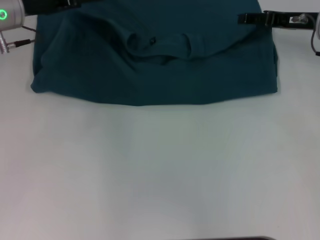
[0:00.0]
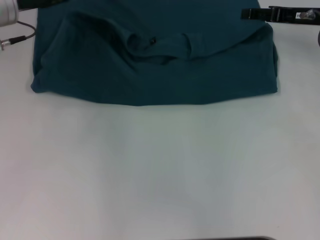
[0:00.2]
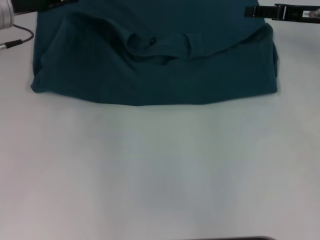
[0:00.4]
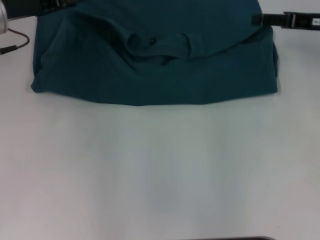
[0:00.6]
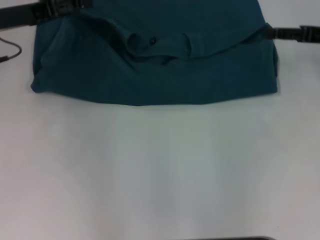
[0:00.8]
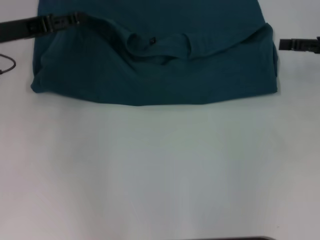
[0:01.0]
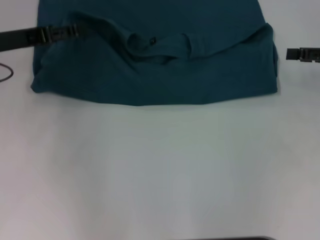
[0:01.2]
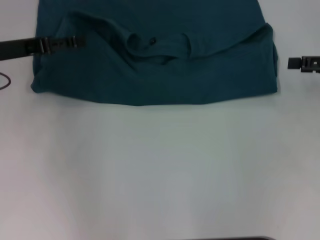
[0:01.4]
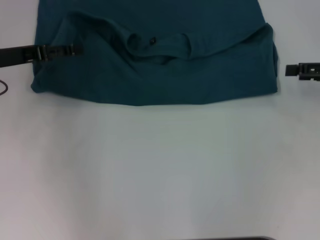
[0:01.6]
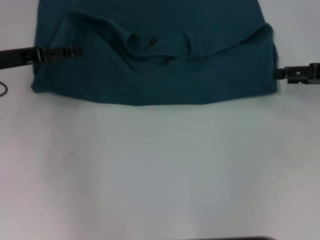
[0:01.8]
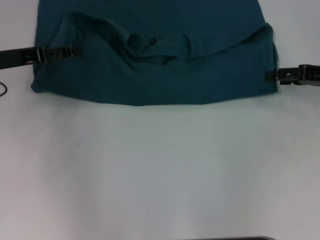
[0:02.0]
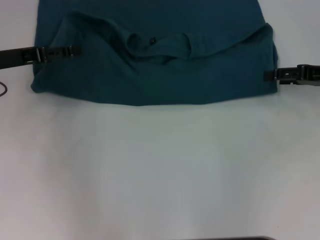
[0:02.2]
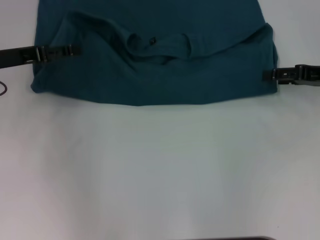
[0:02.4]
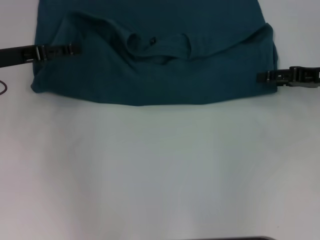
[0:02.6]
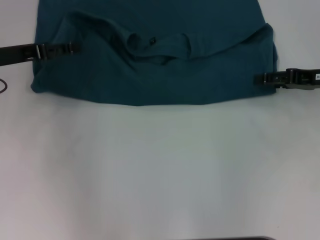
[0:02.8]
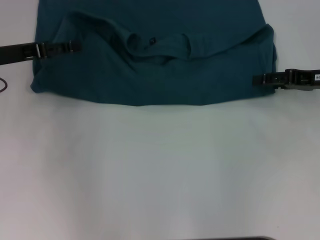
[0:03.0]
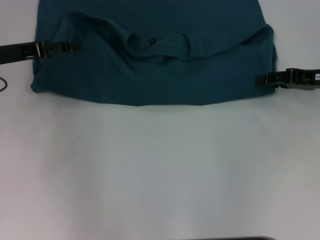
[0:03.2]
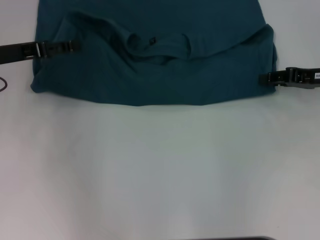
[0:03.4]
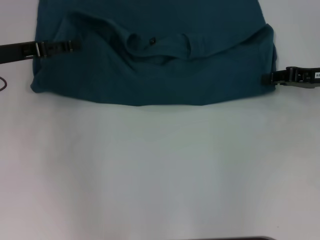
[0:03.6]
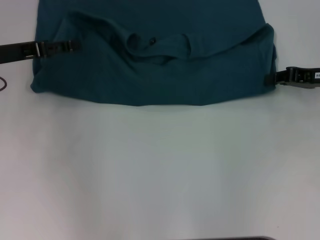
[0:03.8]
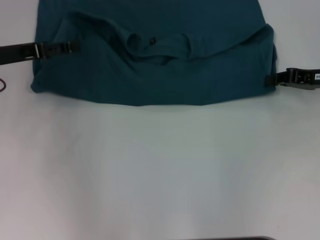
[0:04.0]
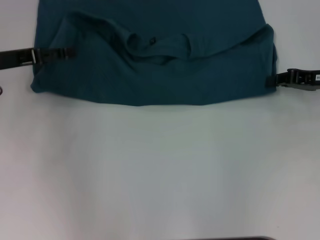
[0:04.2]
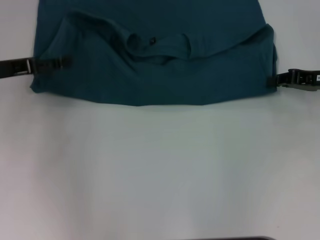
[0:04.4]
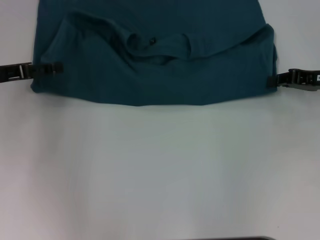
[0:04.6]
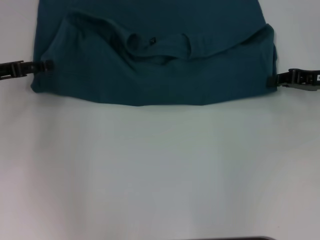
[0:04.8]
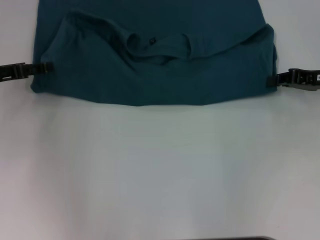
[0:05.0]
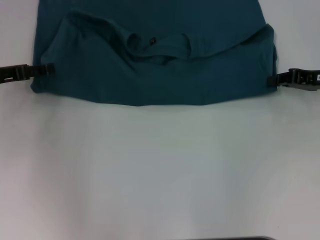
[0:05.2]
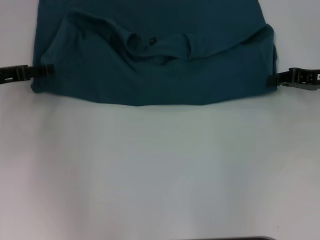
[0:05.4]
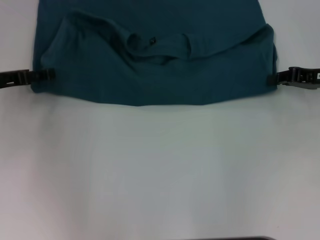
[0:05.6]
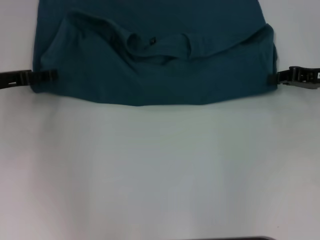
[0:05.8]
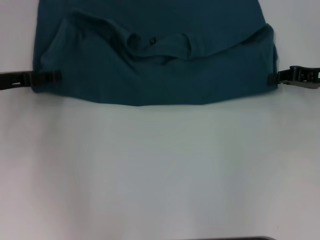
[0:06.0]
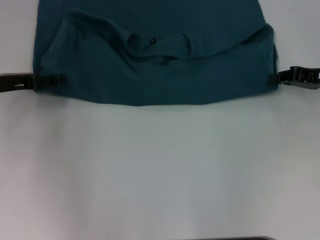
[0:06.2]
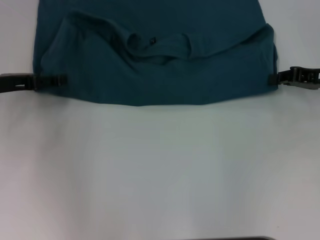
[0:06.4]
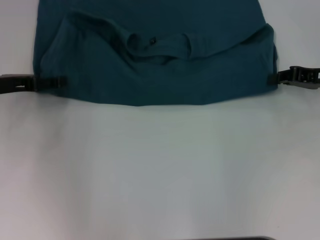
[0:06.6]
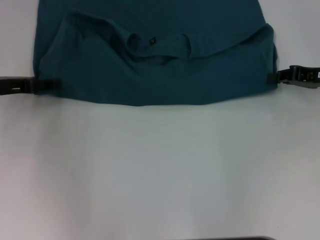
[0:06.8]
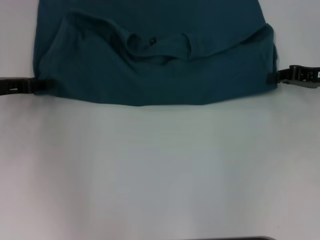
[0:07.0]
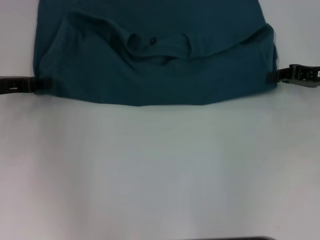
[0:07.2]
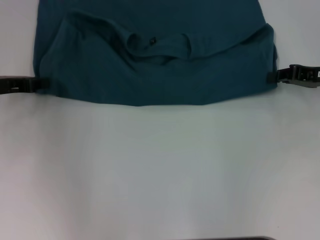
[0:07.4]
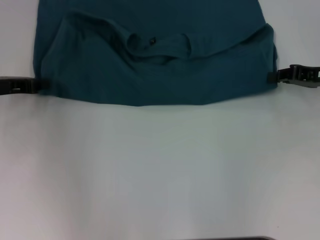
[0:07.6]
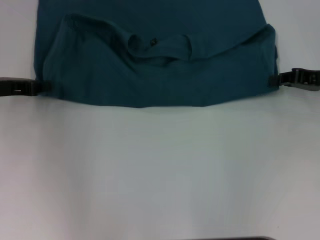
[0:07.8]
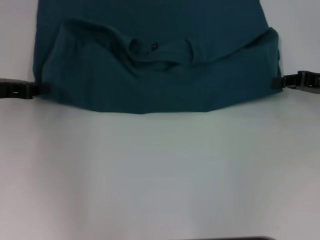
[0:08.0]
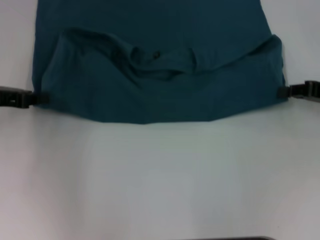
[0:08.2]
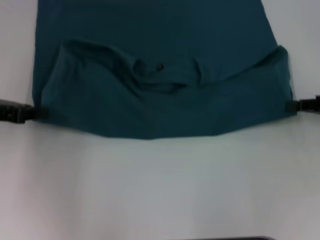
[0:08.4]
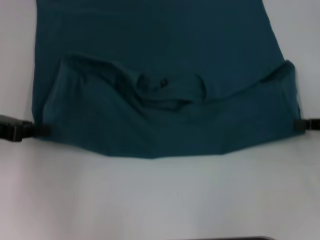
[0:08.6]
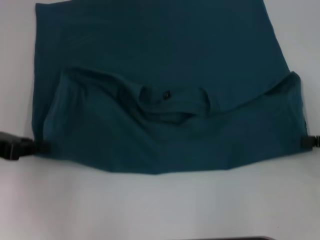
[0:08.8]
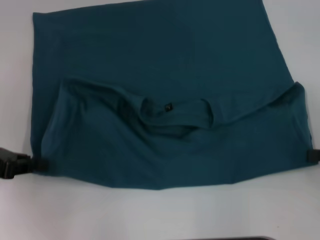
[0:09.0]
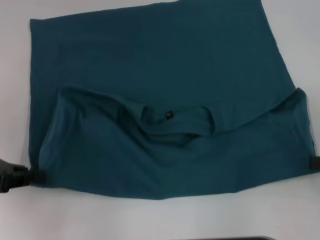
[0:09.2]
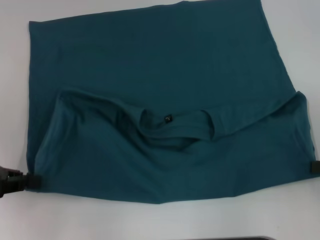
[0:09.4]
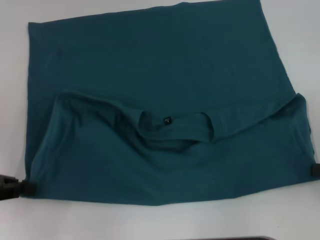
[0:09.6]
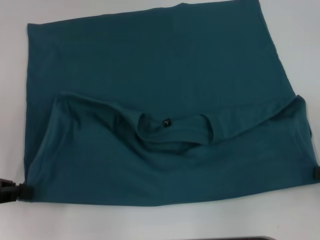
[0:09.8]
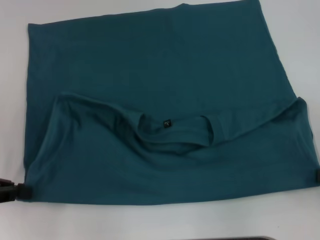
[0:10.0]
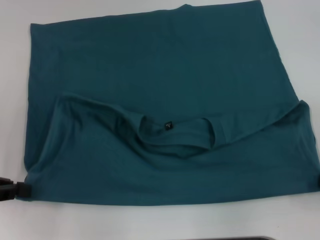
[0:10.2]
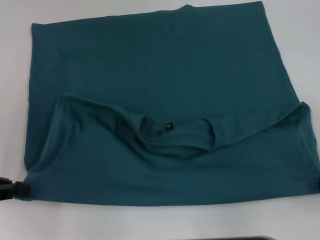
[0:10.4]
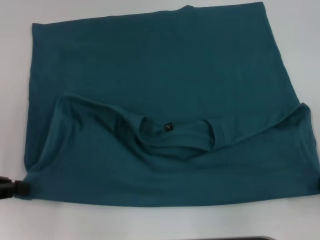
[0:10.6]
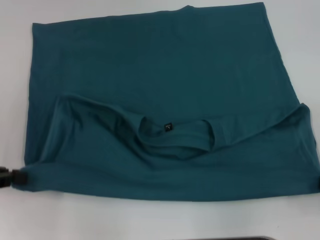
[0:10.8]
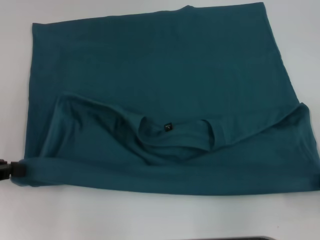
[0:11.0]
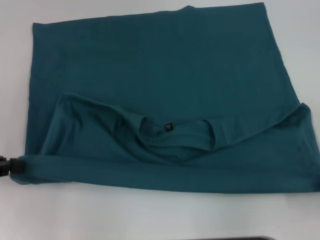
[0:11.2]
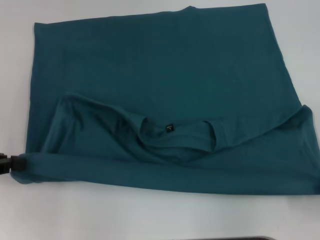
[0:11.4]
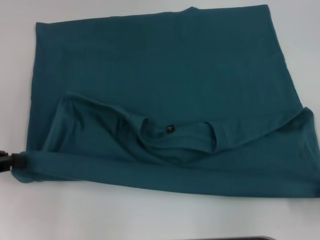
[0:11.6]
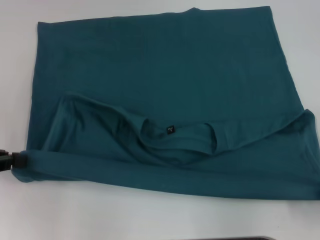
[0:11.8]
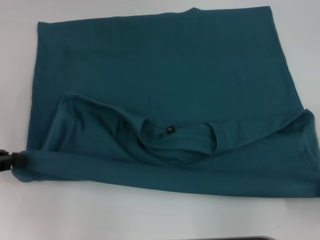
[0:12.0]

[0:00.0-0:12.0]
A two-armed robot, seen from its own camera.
Step, 0:00.2 to 0:10.0: Pull the clothes with your left hand.
Step, 0:00.2 to 0:10.0: Pull the clothes with your right hand.
0:00.0 to 0:01.6: The right gripper is displaced backward and to the right by roughly 10 cm. The left gripper travels backward by some 5 cm.
0:01.6 to 0:03.0: The right gripper moves some 5 cm.
0:04.4 to 0:06.0: The grippers move only a little.
0:06.0 to 0:07.6: The left gripper closes up.
0:07.6 to 0:09.0: The left gripper goes some 10 cm backward, while the right gripper goes about 15 cm backward and to the right.
0:09.0 to 0:10.4: The right gripper moves approximately 5 cm.
0:10.4 to 0:12.0: The grippers make only small movements.

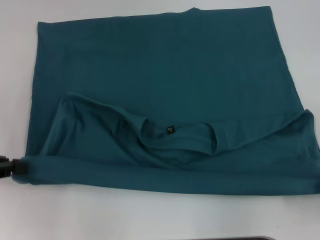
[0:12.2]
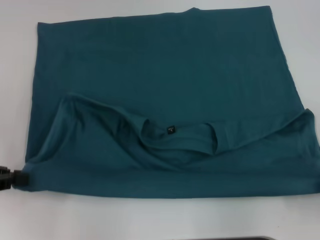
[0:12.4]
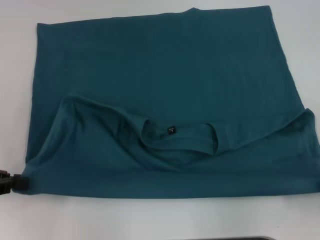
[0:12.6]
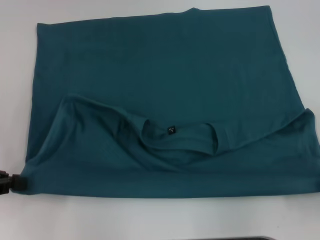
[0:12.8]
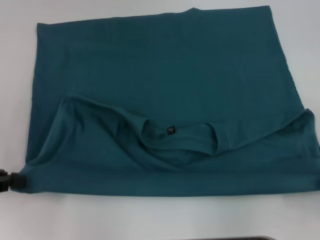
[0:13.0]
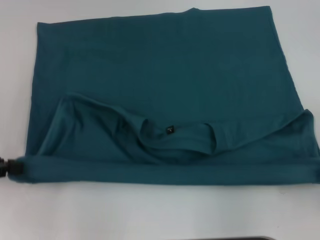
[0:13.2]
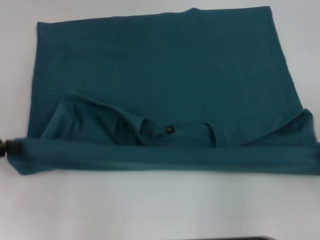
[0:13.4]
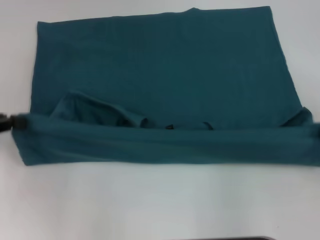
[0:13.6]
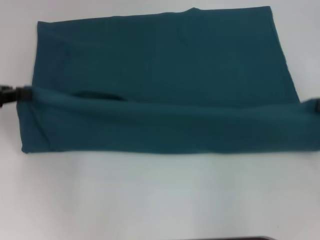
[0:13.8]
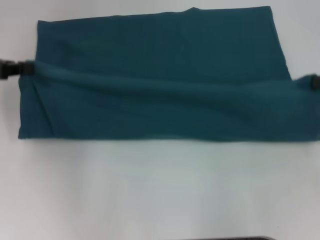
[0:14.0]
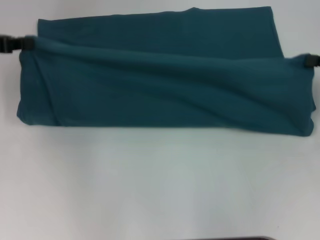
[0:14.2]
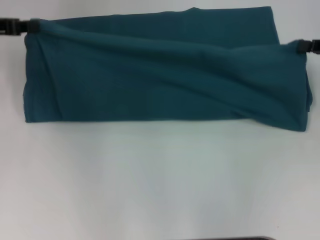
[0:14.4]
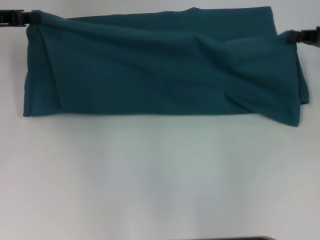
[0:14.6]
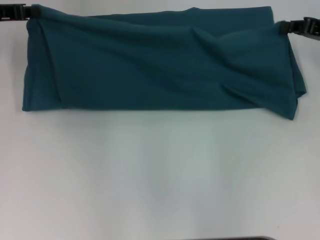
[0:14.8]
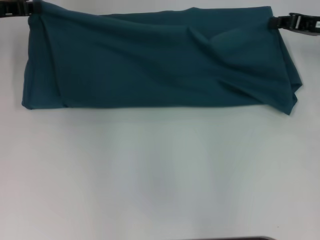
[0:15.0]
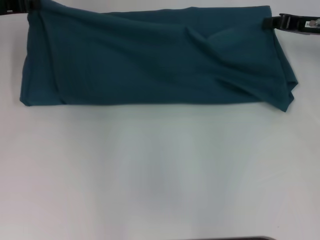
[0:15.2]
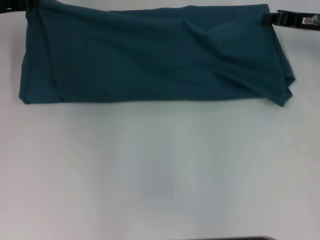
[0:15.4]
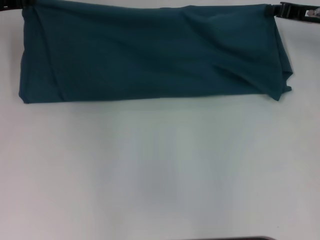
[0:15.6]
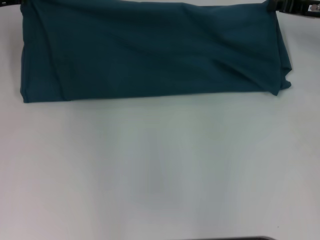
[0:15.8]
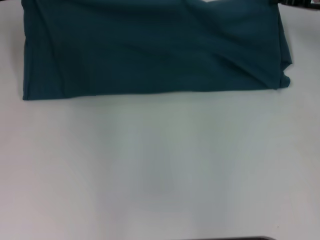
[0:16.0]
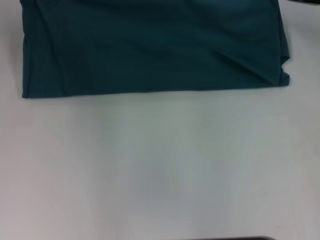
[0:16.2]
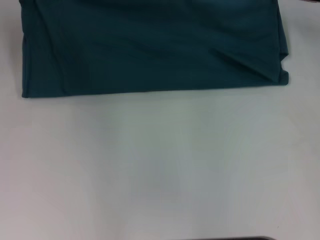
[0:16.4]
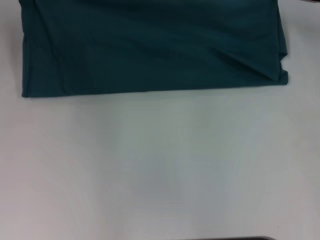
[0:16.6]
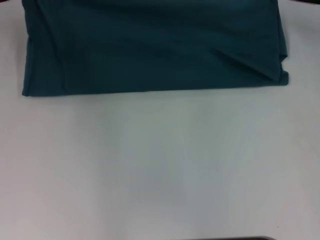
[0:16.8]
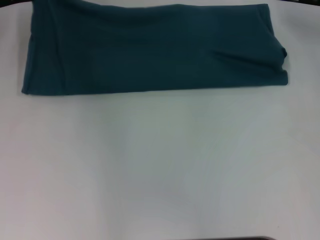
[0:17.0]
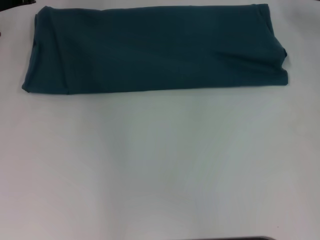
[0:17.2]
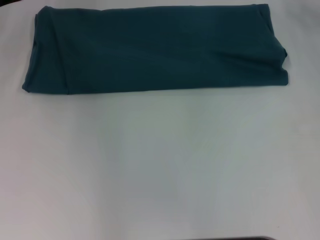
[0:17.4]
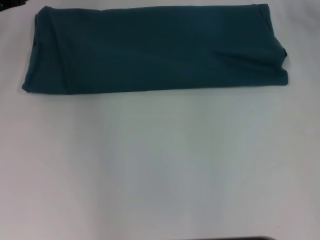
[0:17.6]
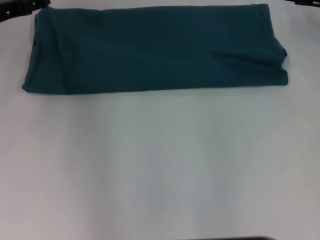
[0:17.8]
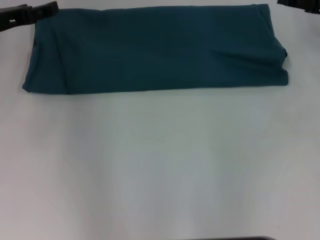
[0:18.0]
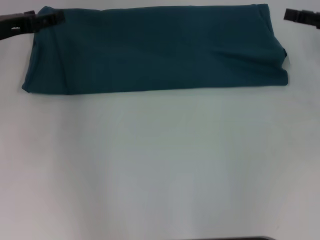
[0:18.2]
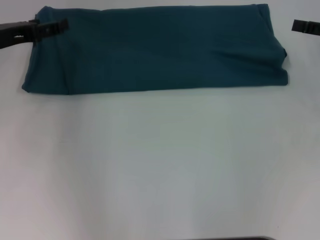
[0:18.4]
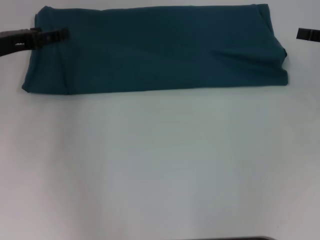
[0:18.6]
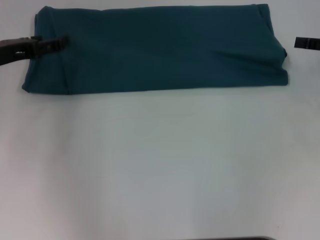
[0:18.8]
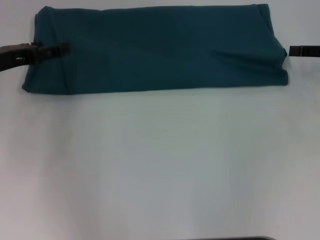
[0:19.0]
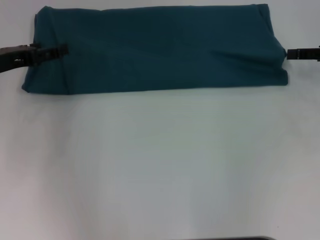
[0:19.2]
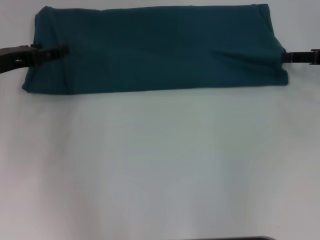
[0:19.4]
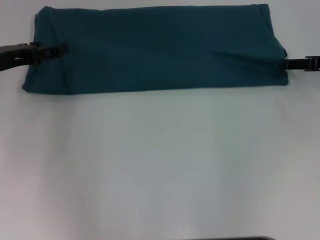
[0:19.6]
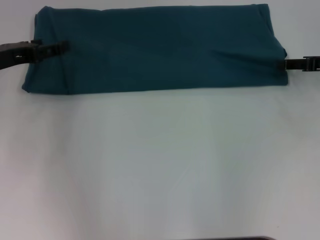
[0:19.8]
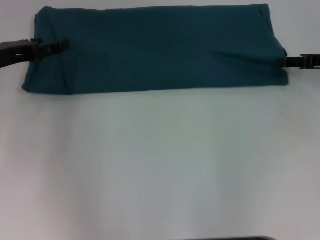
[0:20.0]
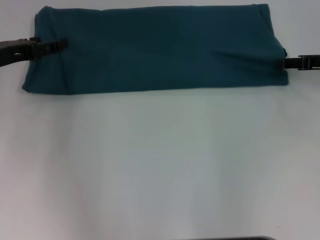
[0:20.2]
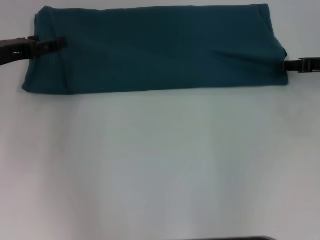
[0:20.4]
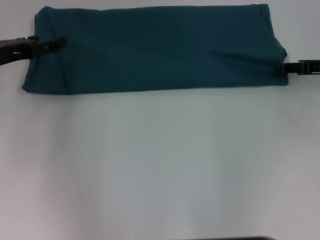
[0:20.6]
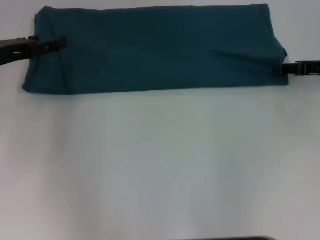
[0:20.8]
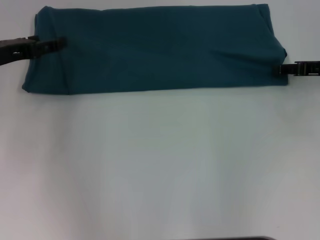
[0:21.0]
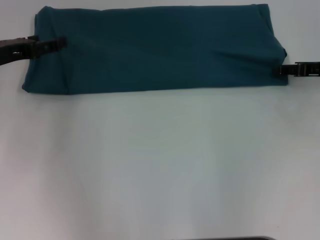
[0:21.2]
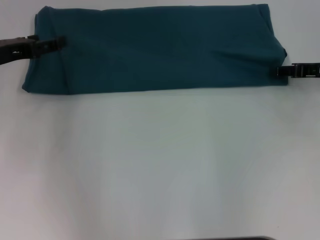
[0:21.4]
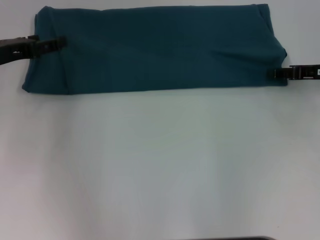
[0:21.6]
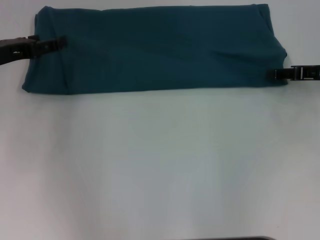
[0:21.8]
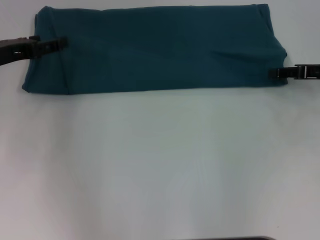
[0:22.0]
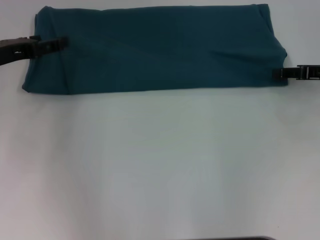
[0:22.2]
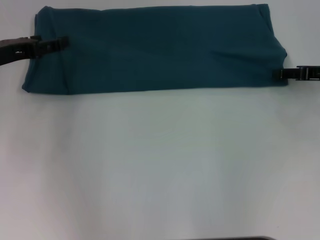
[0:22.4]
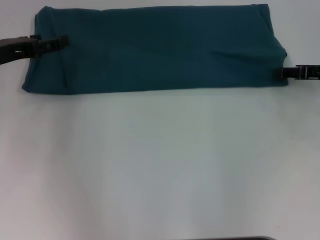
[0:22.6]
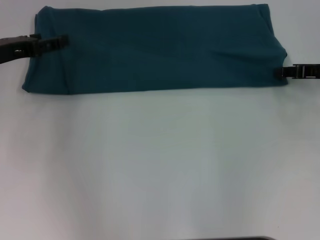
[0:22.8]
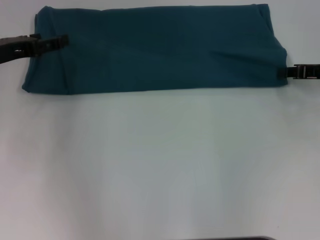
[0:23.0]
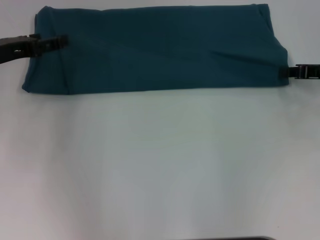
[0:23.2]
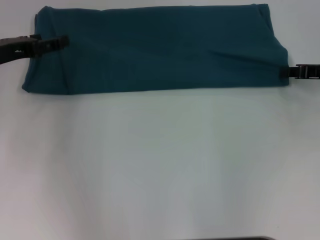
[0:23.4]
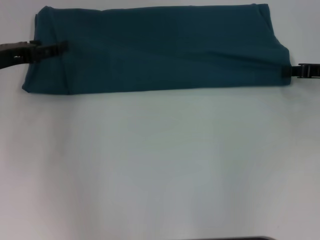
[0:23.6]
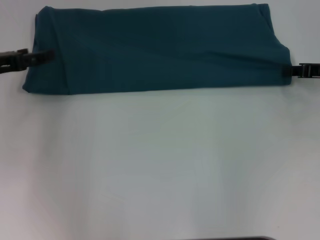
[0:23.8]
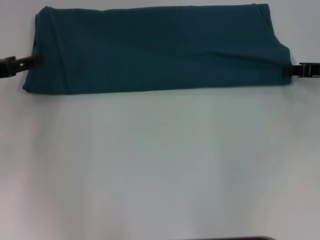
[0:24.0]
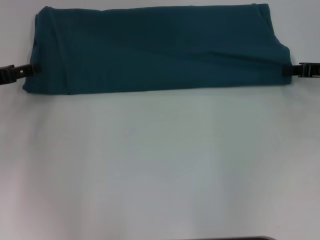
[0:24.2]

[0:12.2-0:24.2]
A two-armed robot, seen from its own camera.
Step, 0:12.2 to 0:17.0: Fold the clothes to the left.
Step, 0:12.2 to 0:17.0: Fold the clothes to the right.
0:12.2 to 0:13.8: The right gripper is displaced forward by approximately 10 cm, while the left gripper goes roughly 5 cm forward.
0:13.8 to 0:15.2: The left gripper heads forward and to the right, covering roughly 10 cm. The right gripper heads forward and to the left, covering approximately 20 cm.
0:15.2 to 0:16.6: The grippers stay close to where they were, moving slightly.
0:16.6 to 0:18.2: The left gripper travels backward by approximately 5 cm, and opens up; the right gripper shifts approximately 10 cm backward and to the right, and opens up.
0:18.2 to 0:21.2: The grippers move only a little.
0:21.2 to 0:22.6: Both grippers stay about where they are.
0:22.6 to 0:24.2: The right gripper closes, while the left gripper moves about 5 cm.
